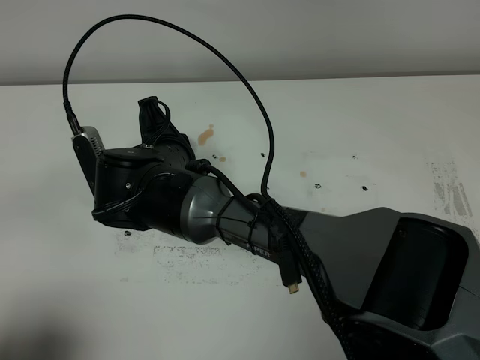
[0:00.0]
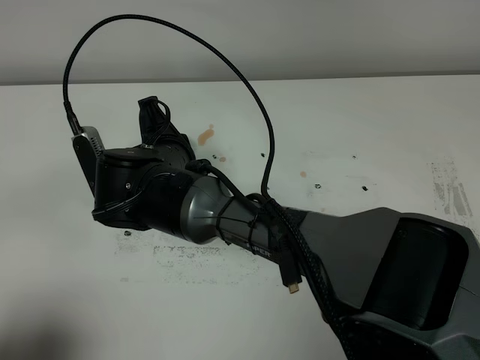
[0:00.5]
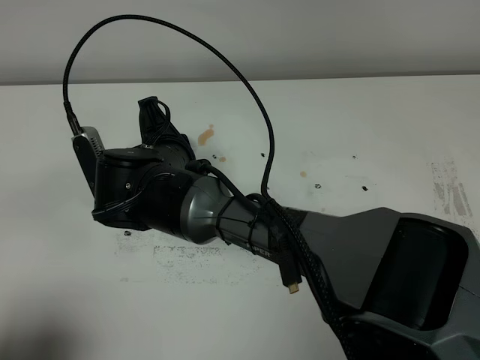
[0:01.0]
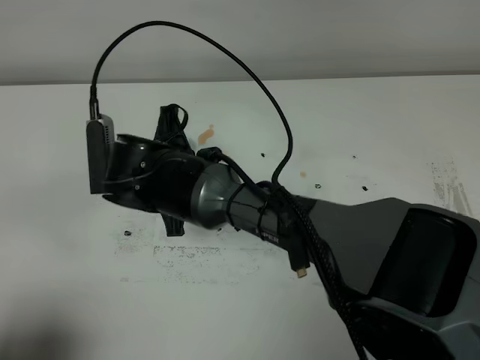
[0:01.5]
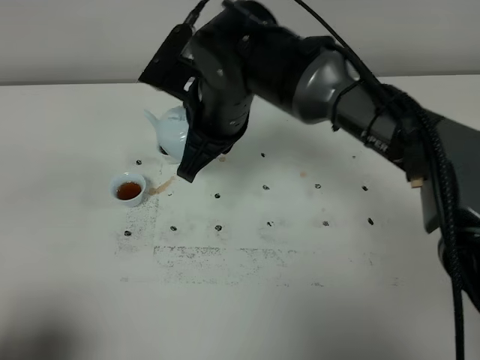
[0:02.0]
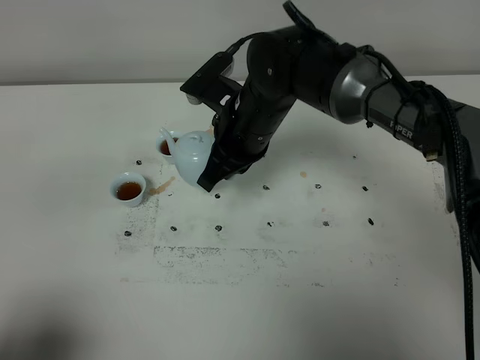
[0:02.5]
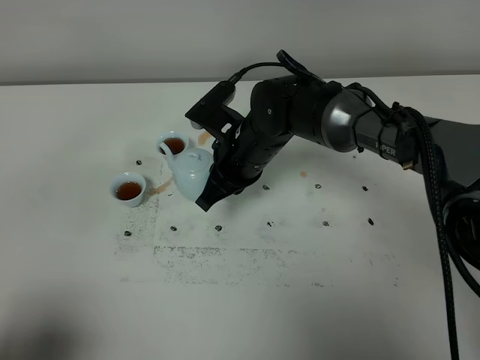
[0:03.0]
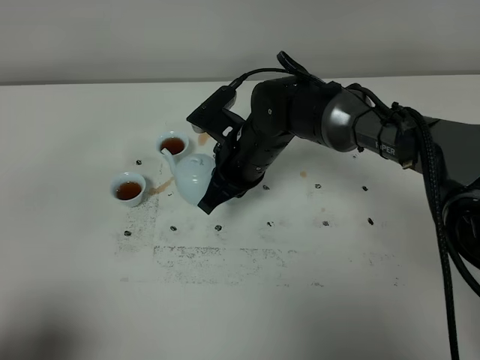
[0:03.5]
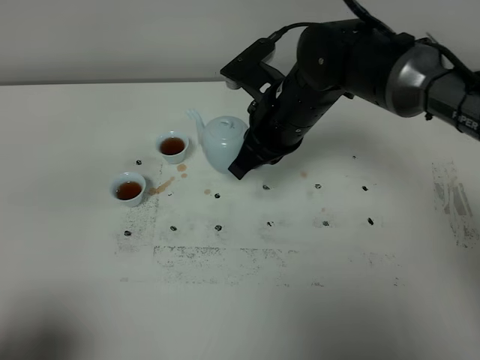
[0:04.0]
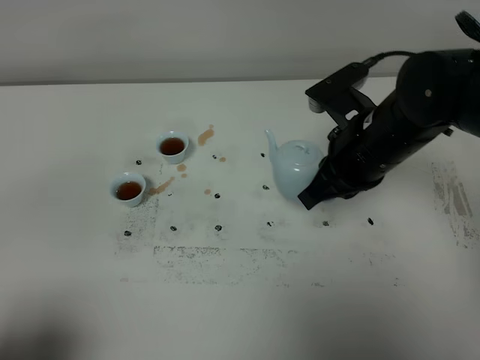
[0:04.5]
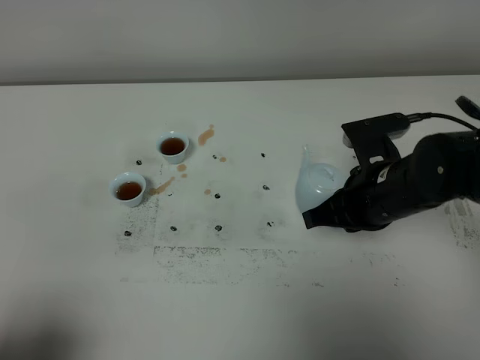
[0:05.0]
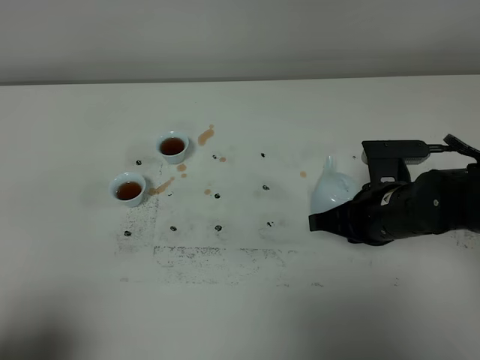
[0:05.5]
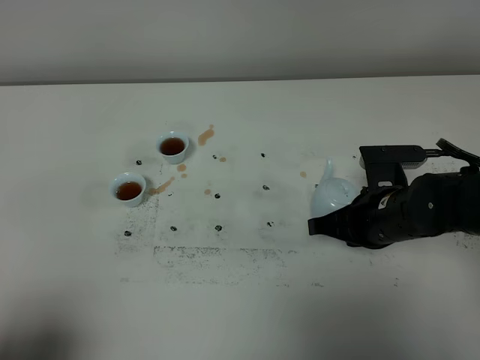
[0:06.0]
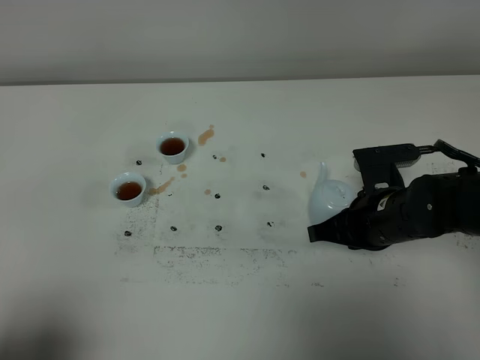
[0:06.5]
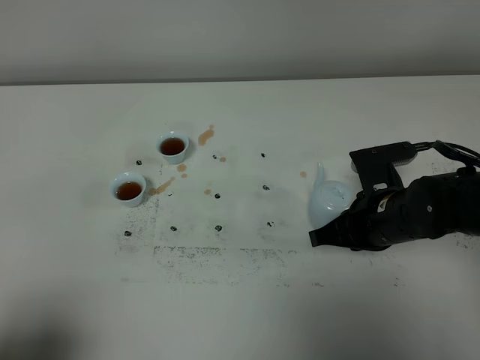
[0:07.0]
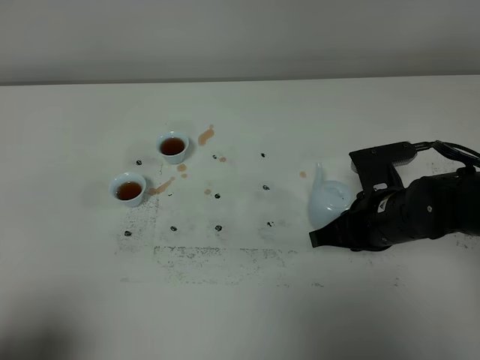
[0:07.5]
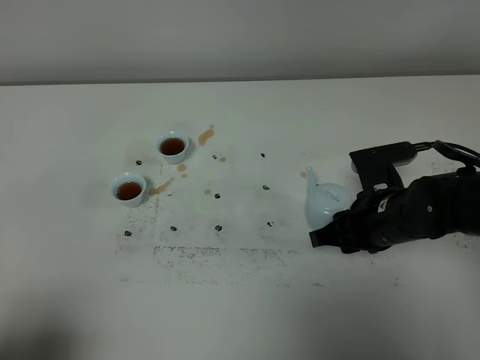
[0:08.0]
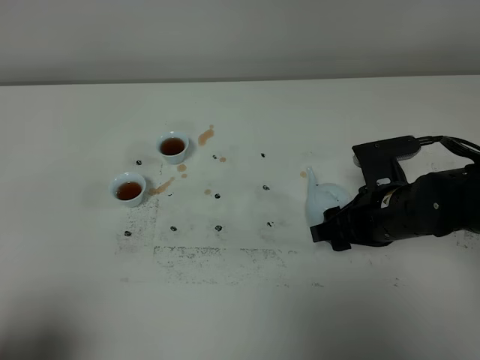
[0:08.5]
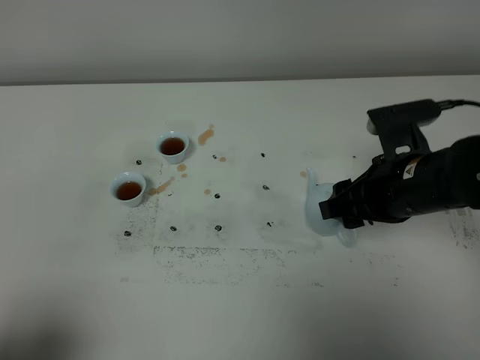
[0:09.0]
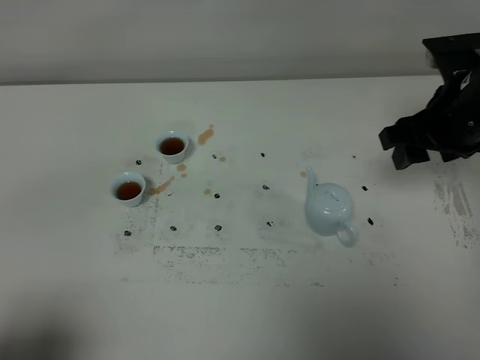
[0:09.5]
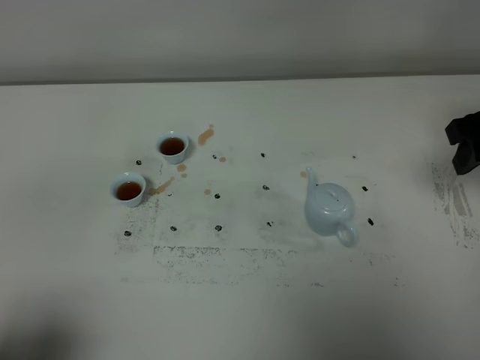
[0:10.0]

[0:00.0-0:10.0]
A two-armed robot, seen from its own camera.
Task of the whole recording: grasp the blue porcelain teapot and pour the tea into the two blue porcelain teacups one by one, put the blue porcelain teapot back in its original place.
0:00.0 to 0:02.0: The right gripper is displaced to the right and upward by approximately 10 cm.
0:02.0 to 0:04.0: The right gripper heads to the right, covering some 10 cm, and travels downward and back again, some 10 cm each way.
0:04.0 to 0:06.0: The right gripper moves to the right, downward and backward, some 15 cm.
0:06.0 to 0:08.0: The right gripper opens up.
0:08.0 to 0:10.0: The right gripper travels upward and to the right by roughly 20 cm.

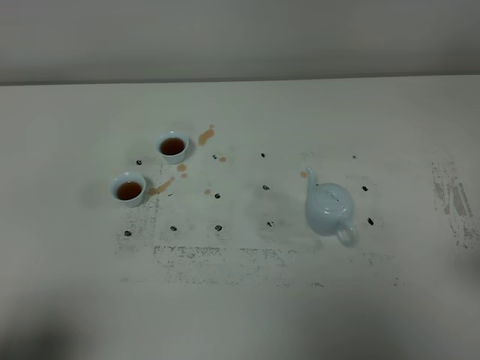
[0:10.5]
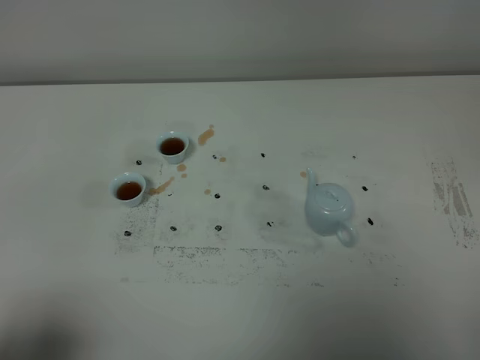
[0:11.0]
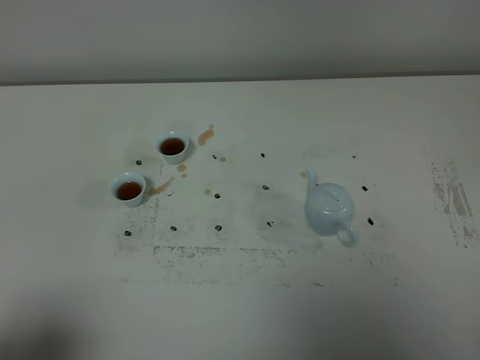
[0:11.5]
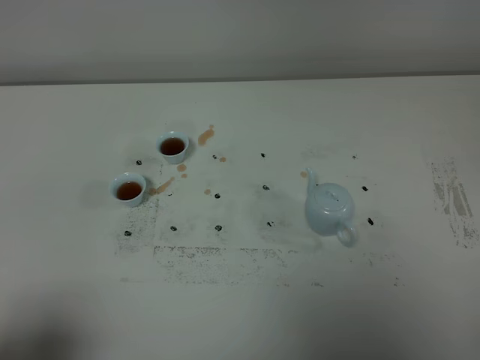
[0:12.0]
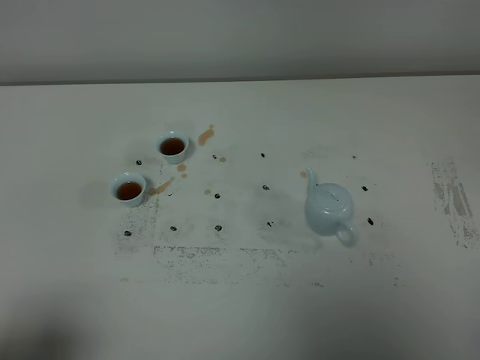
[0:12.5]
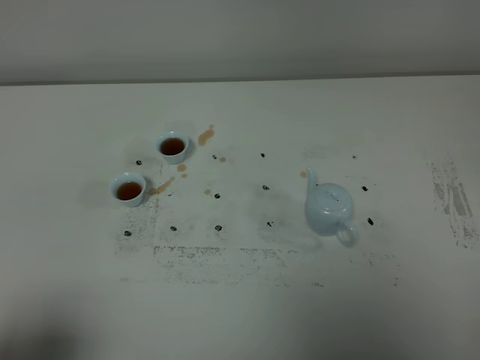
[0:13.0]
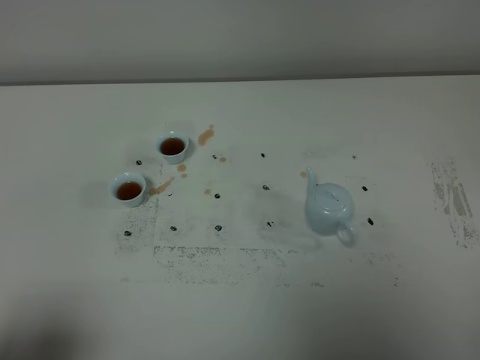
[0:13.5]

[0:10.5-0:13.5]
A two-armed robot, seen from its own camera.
Task of the whole recording: grasp the blue porcelain teapot and pour the tea into the two blue porcelain teacups one by one, put the blue porcelain teapot back in its original place.
0:12.0 to 0:13.5: Both grippers stay about where they are.

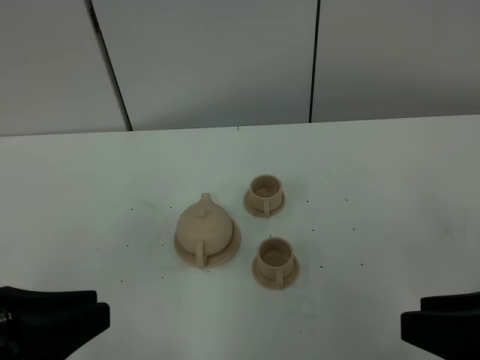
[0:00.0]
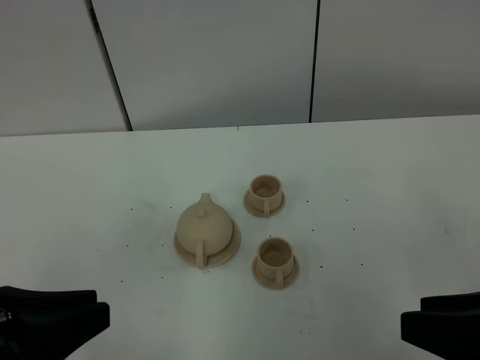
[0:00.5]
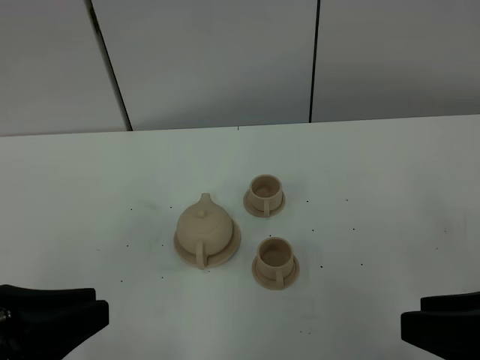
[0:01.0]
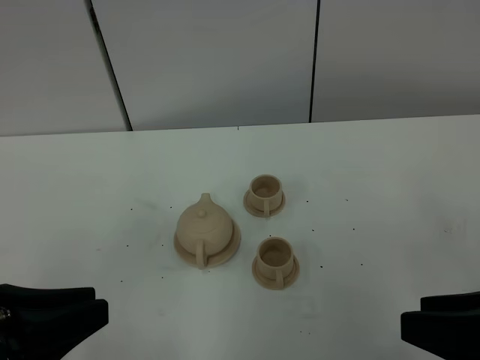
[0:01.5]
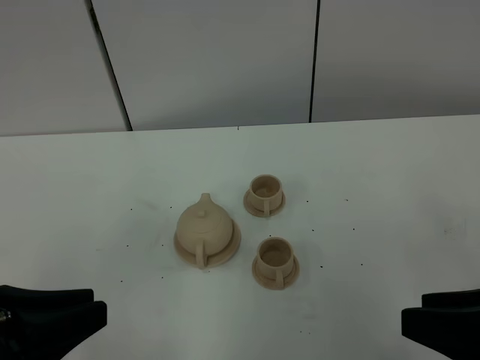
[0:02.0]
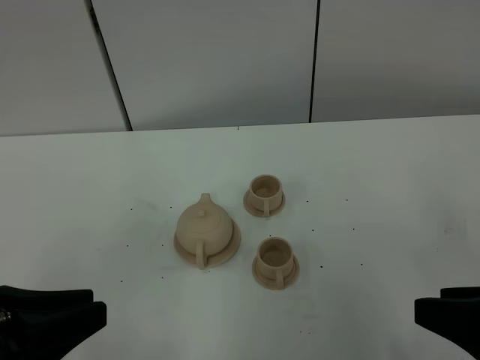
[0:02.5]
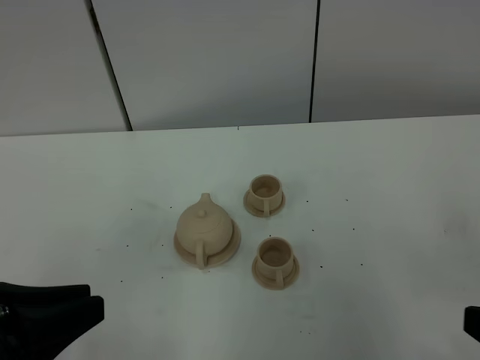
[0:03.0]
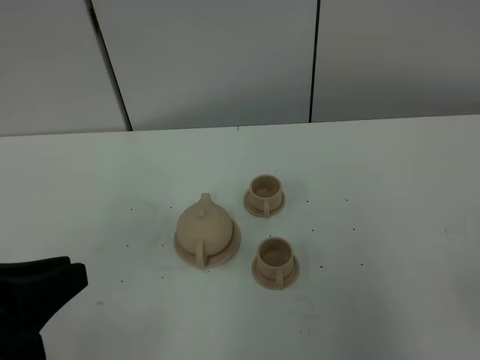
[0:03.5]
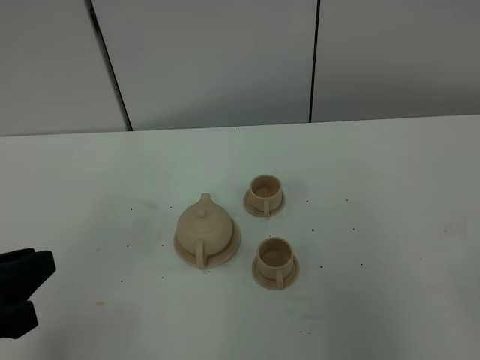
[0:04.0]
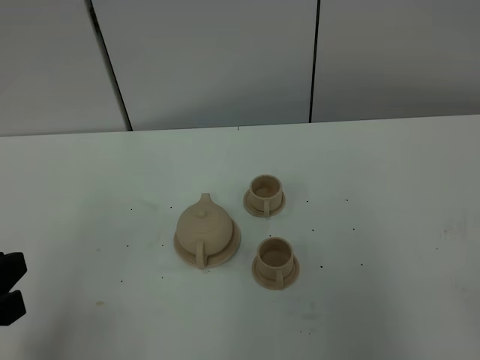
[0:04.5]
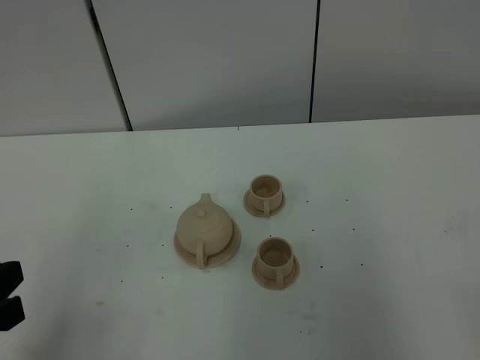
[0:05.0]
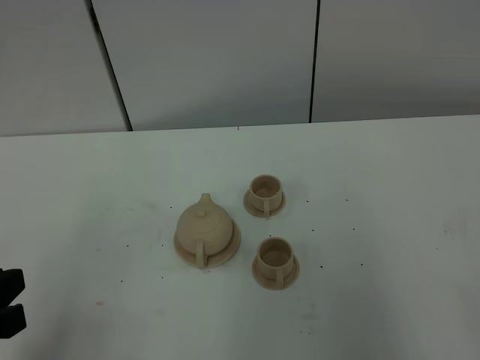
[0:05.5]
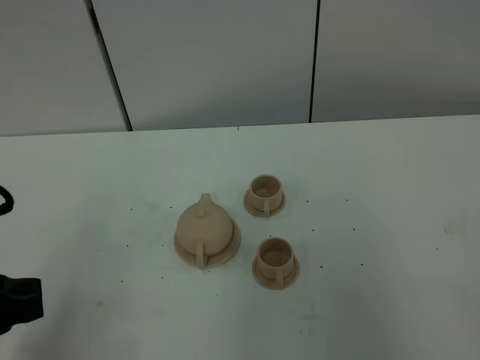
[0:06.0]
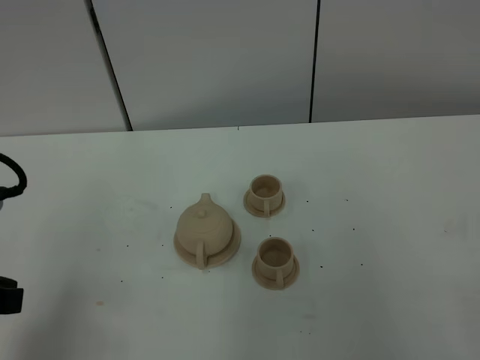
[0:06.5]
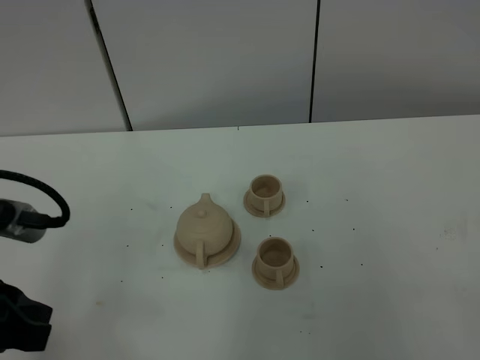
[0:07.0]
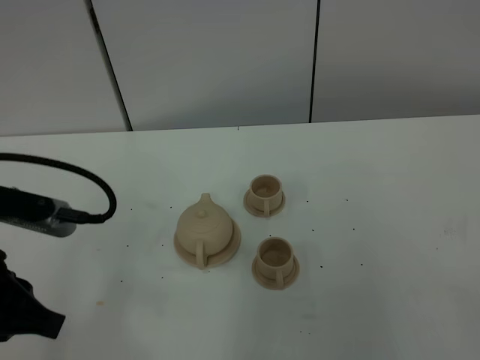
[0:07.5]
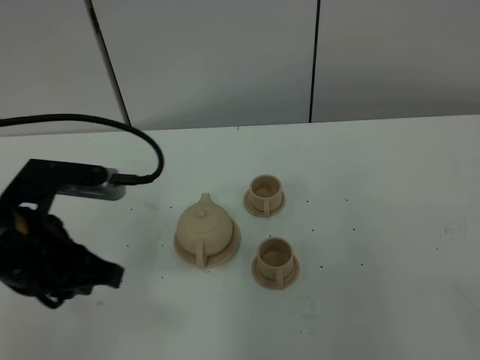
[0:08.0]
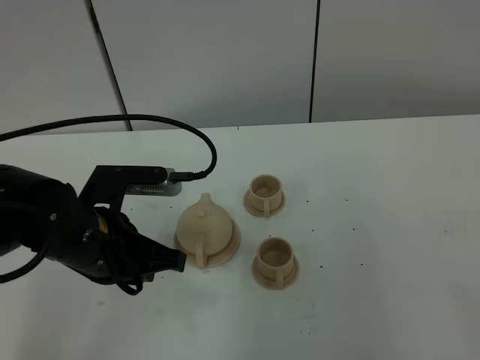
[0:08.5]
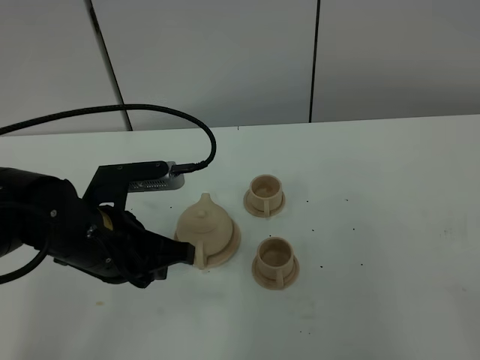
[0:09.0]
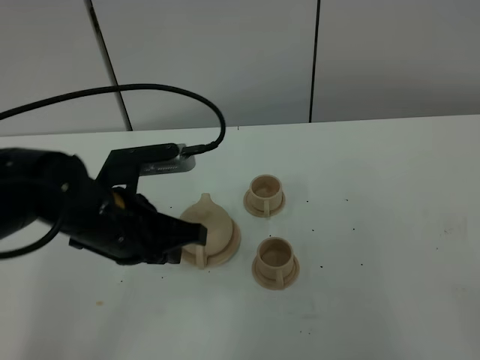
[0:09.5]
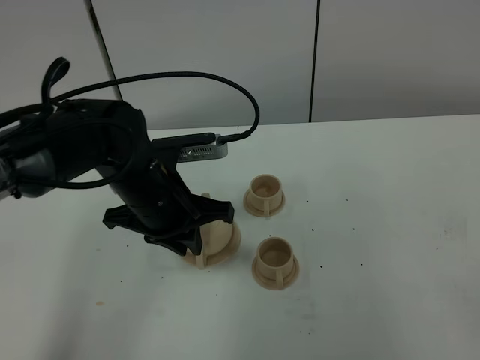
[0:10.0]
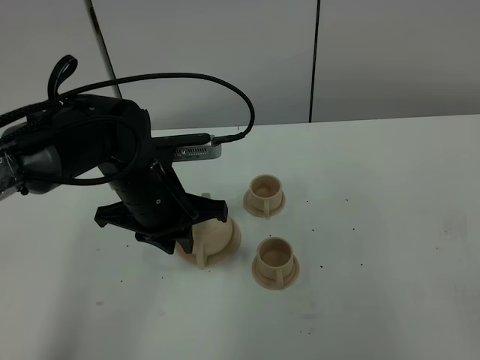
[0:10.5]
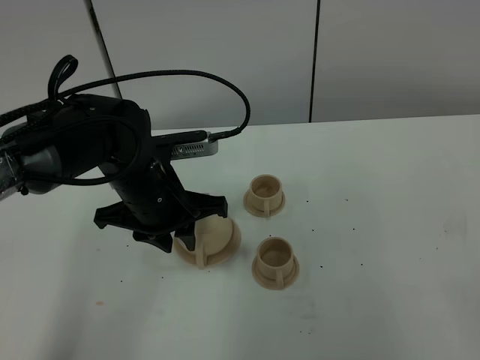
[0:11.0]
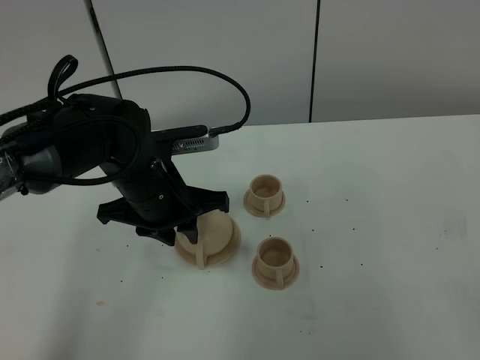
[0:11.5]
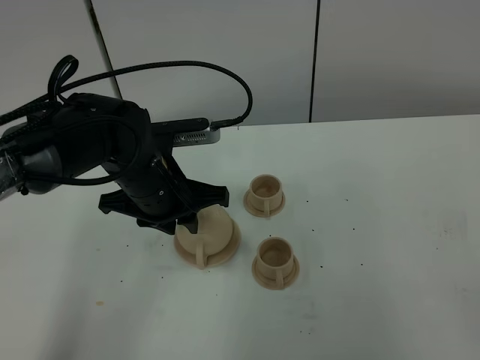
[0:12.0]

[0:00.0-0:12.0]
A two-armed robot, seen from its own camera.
Task of the whole recording: grasp the brown teapot and pour the tea into the two brown teacups one by one, put the brown teapot back in its original place.
0:00.0 to 0:02.0: Both grippers stay about where they are.
0:02.0 to 0:04.0: The right gripper shifts approximately 15 cm backward and to the right.
0:04.0 to 0:06.0: There are only small adjustments of the grippers.
0:06.0 to 0:08.0: The left gripper heads forward and to the right, covering roughly 10 cm.
0:08.0 to 0:10.0: The left gripper is displaced forward, to the right and downward by approximately 15 cm.
0:10.0 to 0:12.0: The left gripper opens up.
